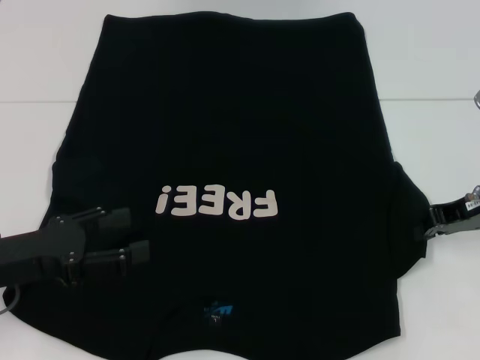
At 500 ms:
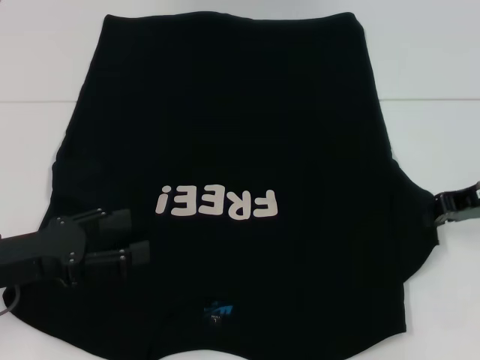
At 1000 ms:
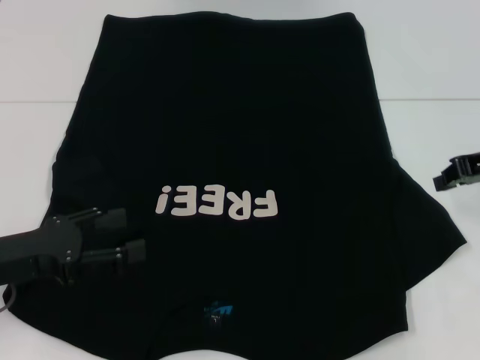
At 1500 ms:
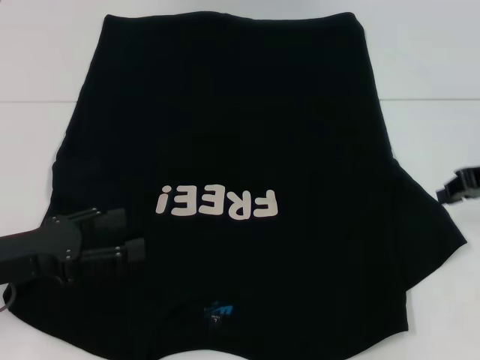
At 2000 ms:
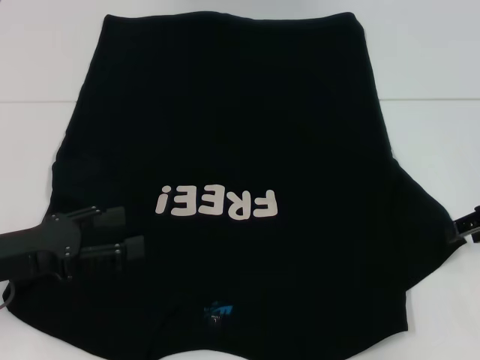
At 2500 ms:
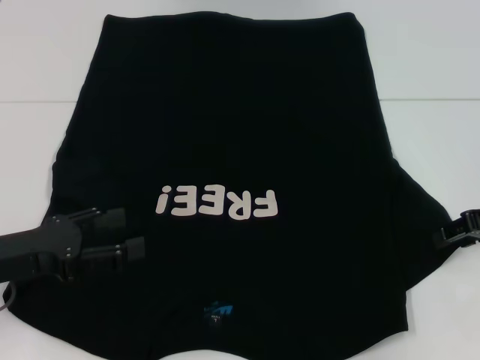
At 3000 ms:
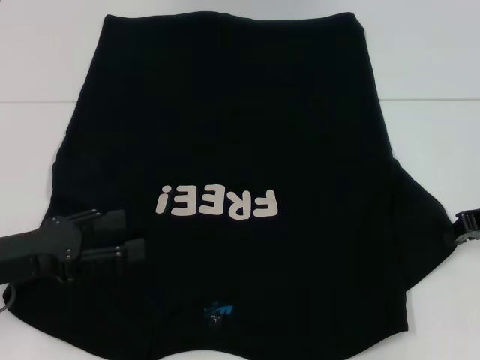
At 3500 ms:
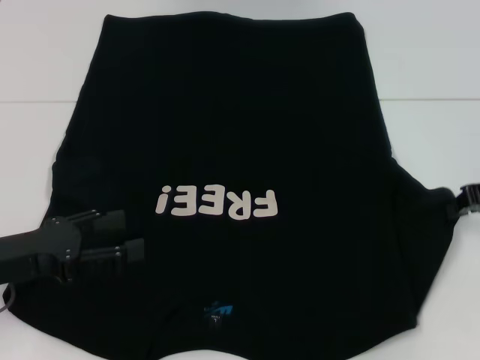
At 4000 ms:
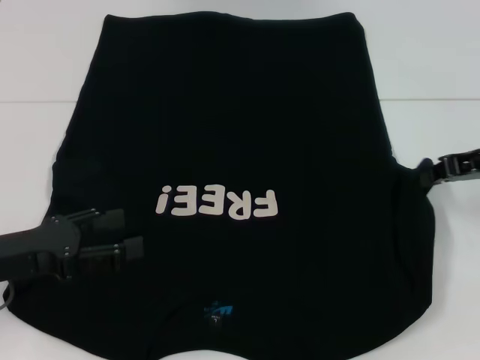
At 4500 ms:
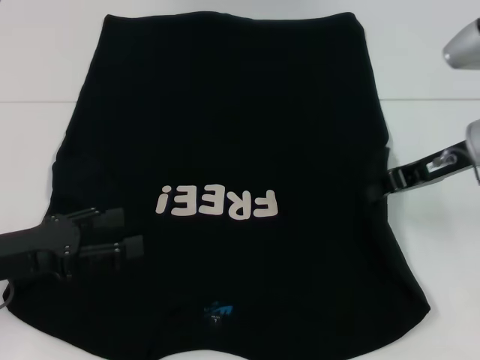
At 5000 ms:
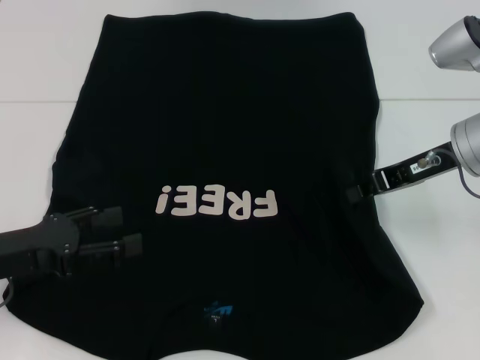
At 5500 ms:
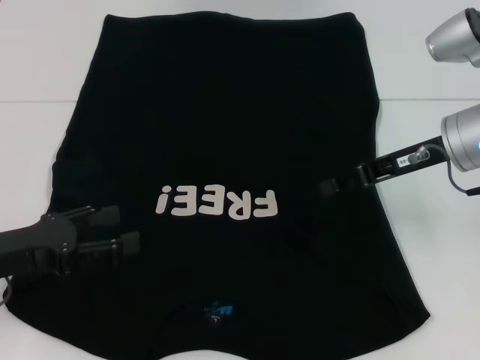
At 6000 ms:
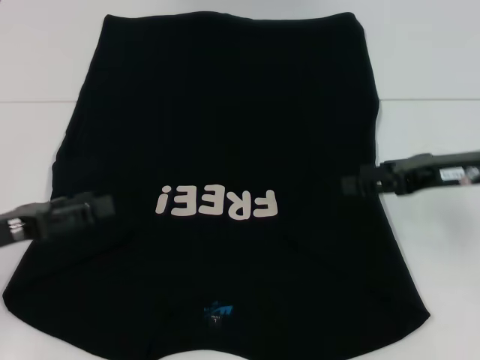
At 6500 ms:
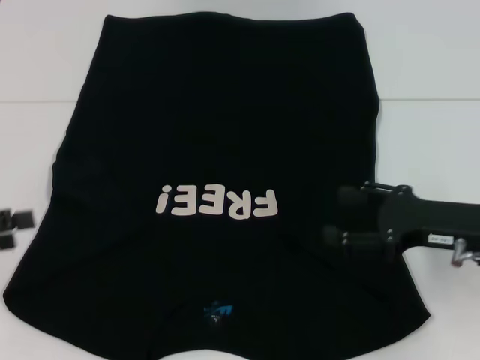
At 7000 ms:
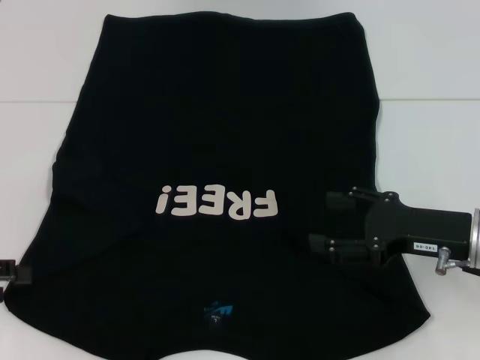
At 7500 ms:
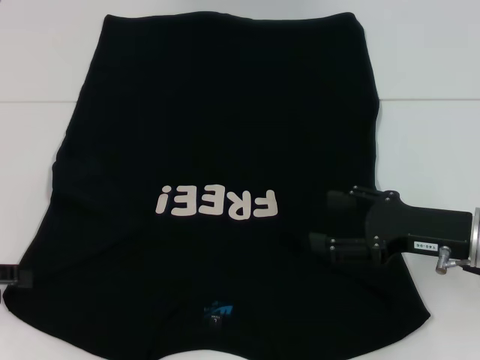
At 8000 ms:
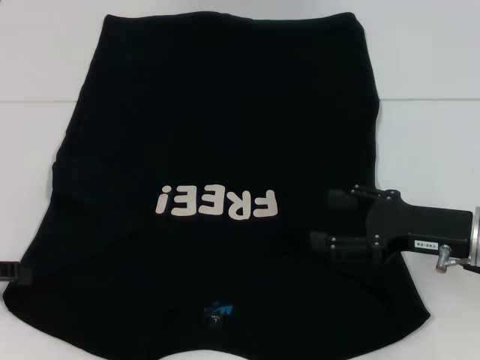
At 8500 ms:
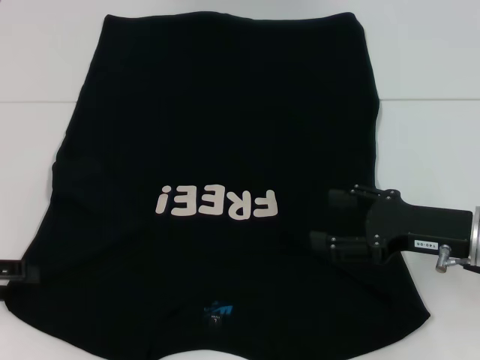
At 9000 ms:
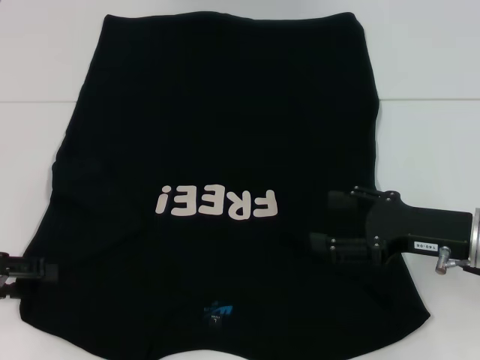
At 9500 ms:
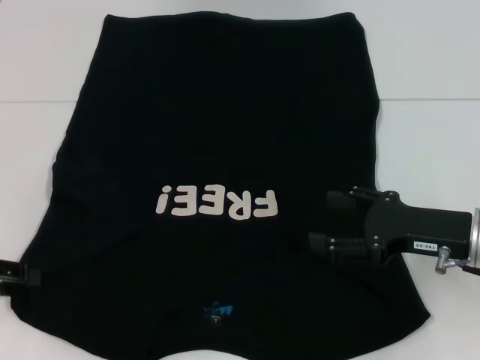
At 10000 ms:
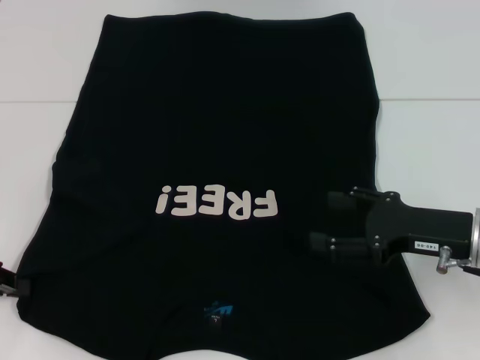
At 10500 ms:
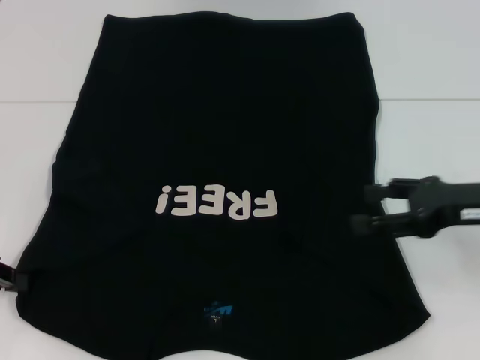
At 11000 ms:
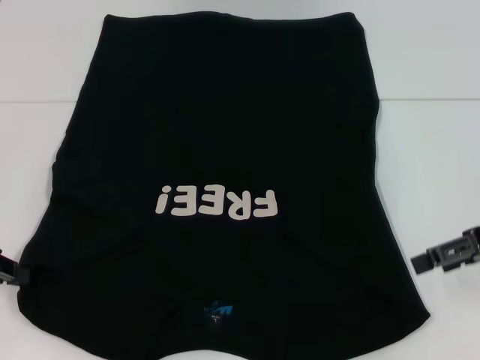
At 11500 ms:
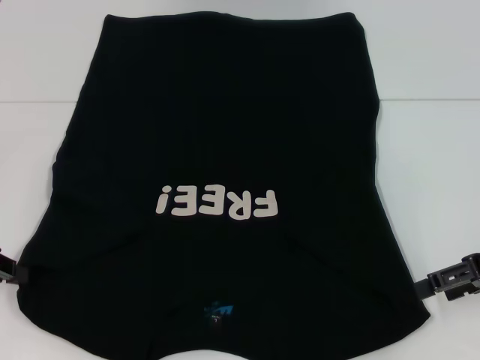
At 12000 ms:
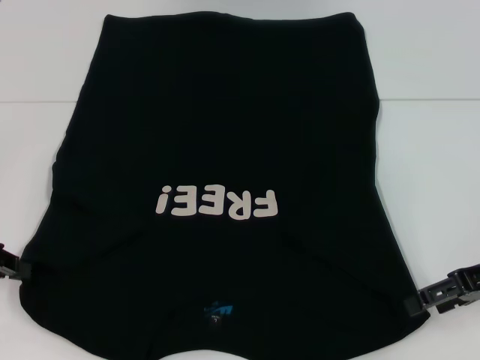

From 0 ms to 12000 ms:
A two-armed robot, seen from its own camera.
Step, from 0 ms to 5500 ms: Fold the bottom right sleeve with your right hand.
Step, from 6000 ms to 10000 ms: Grab the bottom left corner with your left hand.
From 0 ms to 2000 ms: The right gripper moves roughly 5 cm, and opens its fingers.
From 2000 ms to 4000 ms: The right gripper closes its fingers.
From 4000 ms to 6000 ms: The right gripper opens.
From 6000 ms to 8000 ms: The right gripper moves downward and backward, roughly 10 cm. Meanwhile the left gripper travels to the left by about 5 cm.
From 8000 ms to 10000 ms: The left gripper closes its fingers.
From 10000 ms to 12000 ms: The right gripper shifts approximately 5 cm to the right.

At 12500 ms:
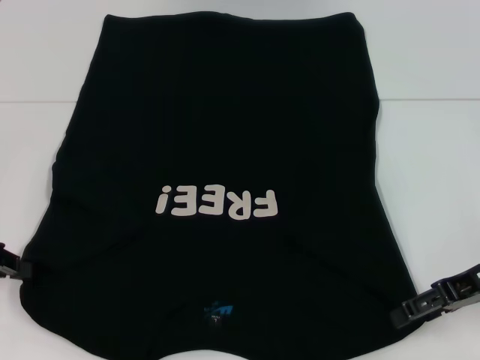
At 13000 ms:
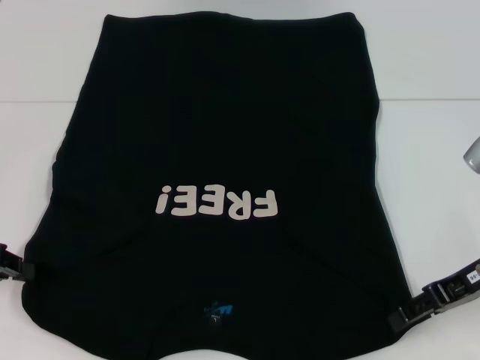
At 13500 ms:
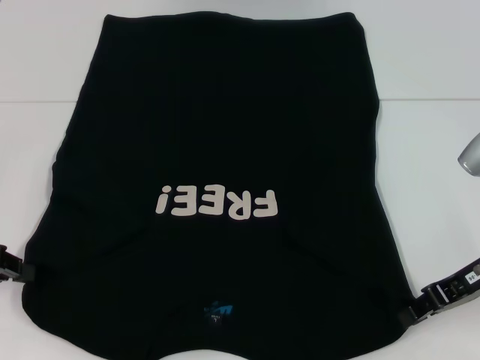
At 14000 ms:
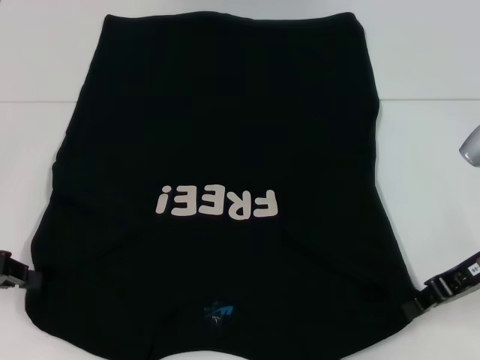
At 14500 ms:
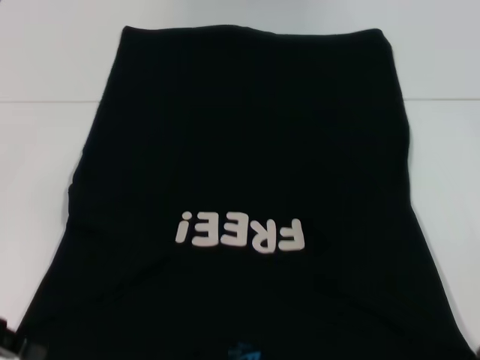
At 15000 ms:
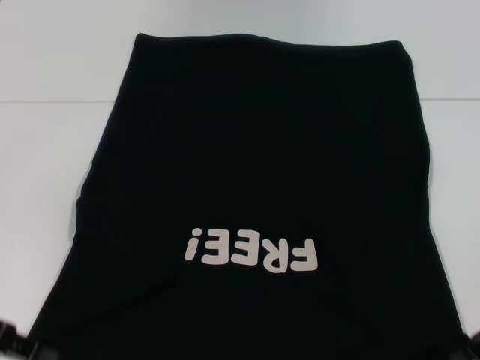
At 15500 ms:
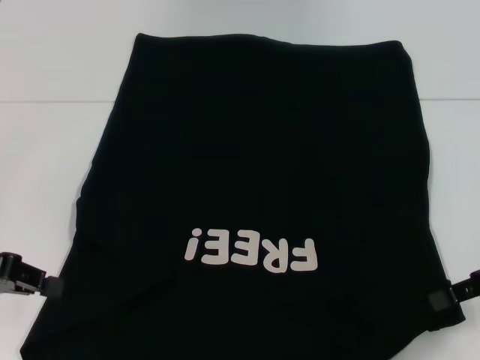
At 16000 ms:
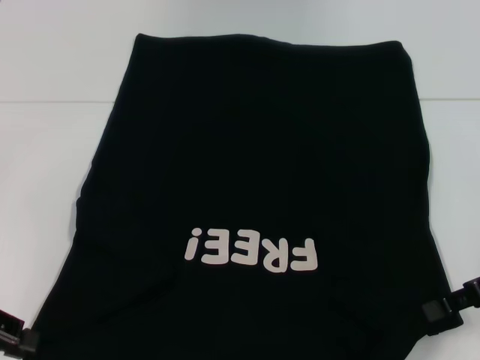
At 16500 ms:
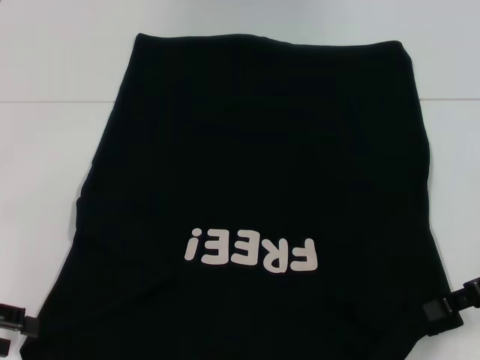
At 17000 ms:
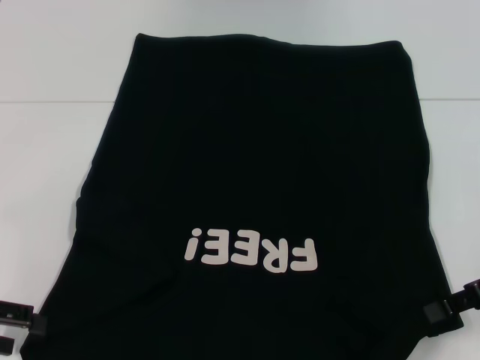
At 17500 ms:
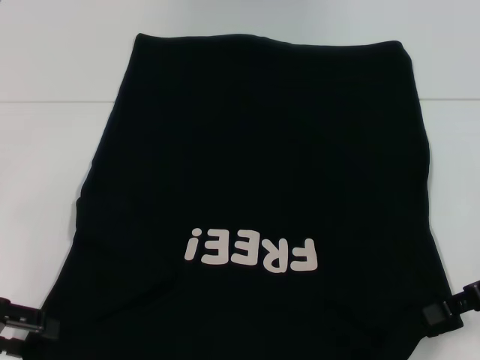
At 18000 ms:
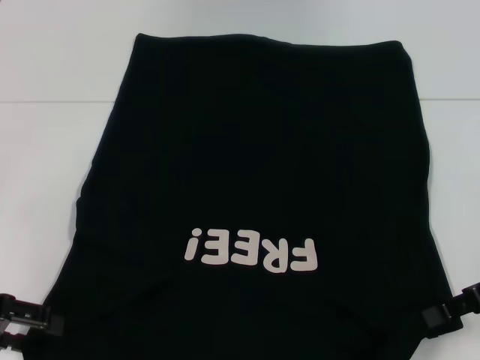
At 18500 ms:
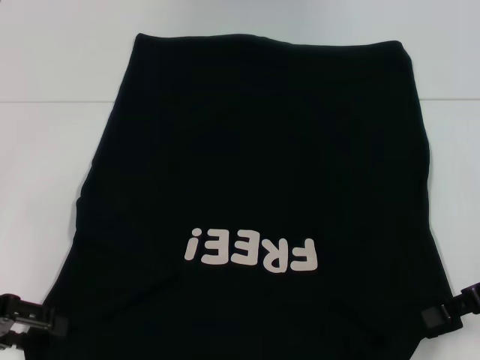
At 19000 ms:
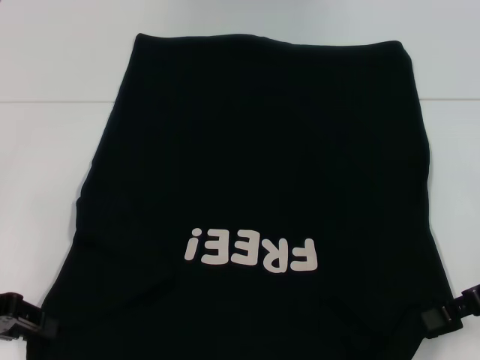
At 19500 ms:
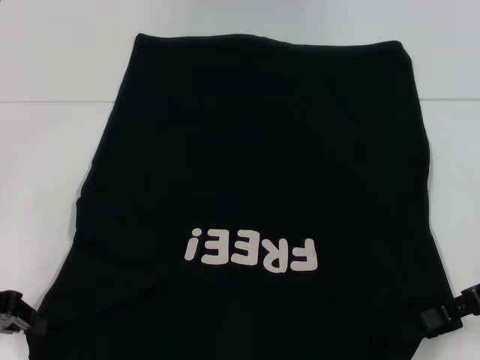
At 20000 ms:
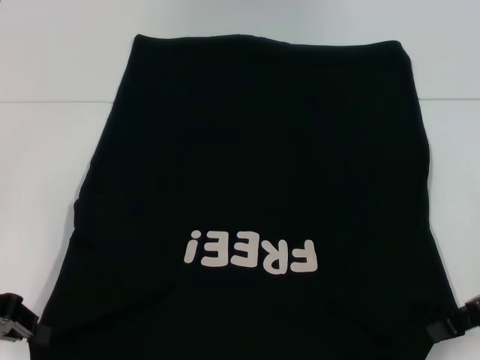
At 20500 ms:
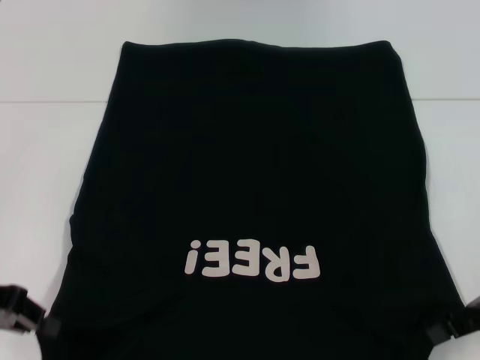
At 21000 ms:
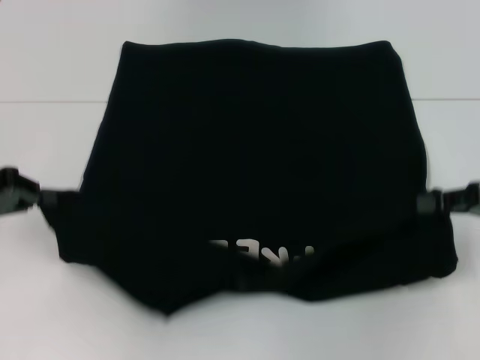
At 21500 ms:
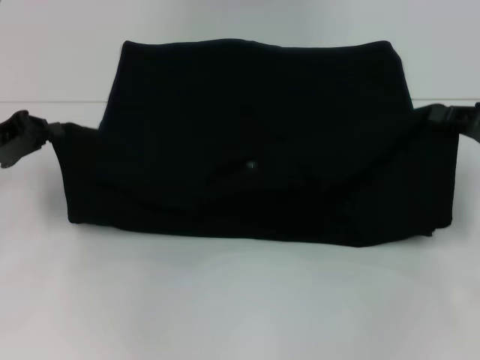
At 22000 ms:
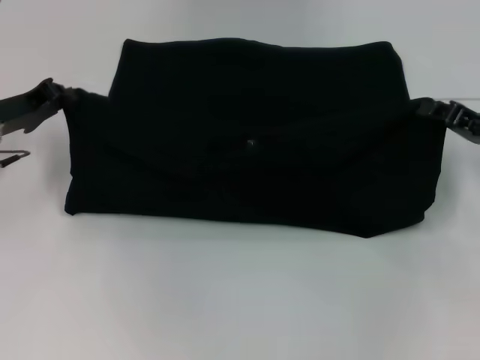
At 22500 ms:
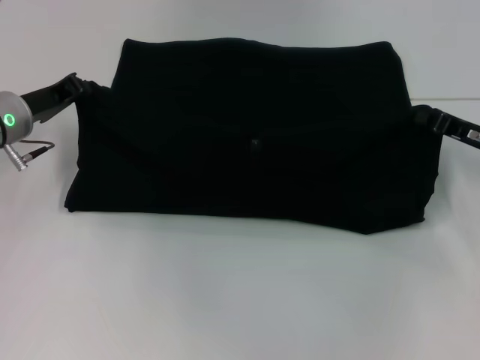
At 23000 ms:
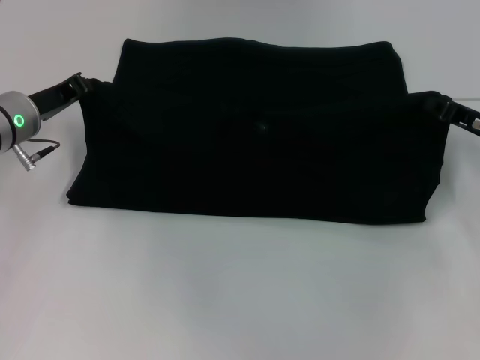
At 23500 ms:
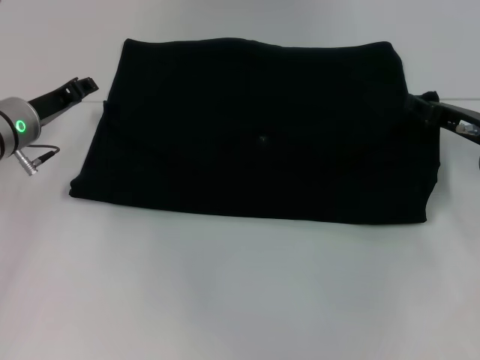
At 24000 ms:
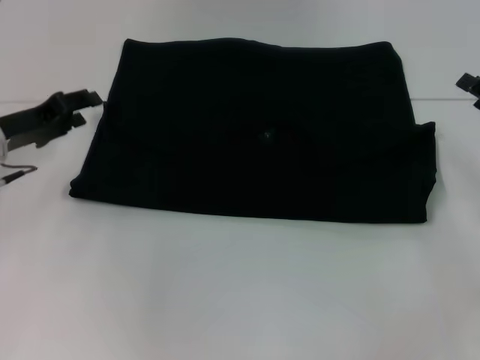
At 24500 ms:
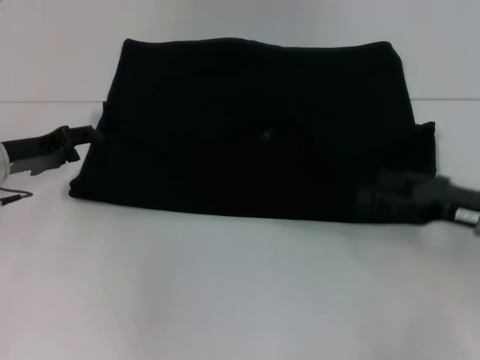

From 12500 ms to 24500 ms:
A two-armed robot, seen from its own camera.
Step, from 14000 ms to 23500 ms: Fold the clothes with your left hand.
Step, from 14000 ms to 23500 ms: Fold the clothes with your right hand.
From 12500 ms to 14500 ms: The right gripper closes.
From 14500 ms to 16500 ms: The left gripper opens its fingers.
From 16500 ms to 18500 ms: The grippers make only small movements.
From 18500 ms to 20500 ms: The left gripper closes up.
From 20500 ms to 22500 ms: The left gripper moves forward and to the right, approximately 15 cm, while the right gripper travels forward by about 10 cm.
From 22500 ms to 24500 ms: The left gripper opens. The right gripper moves backward, about 5 cm, and opens up.

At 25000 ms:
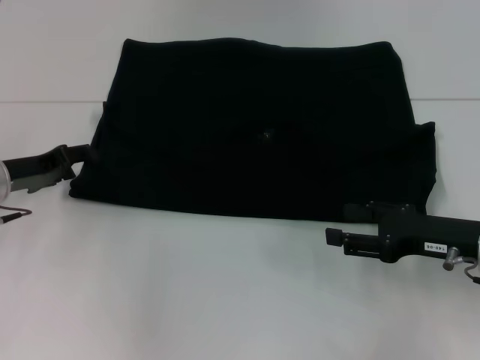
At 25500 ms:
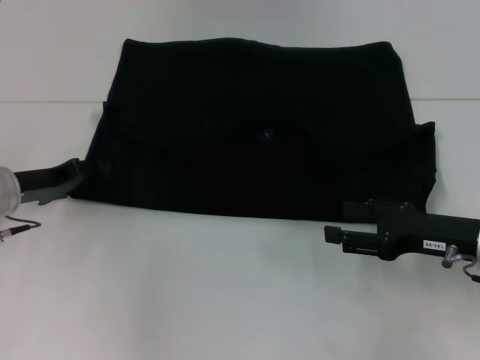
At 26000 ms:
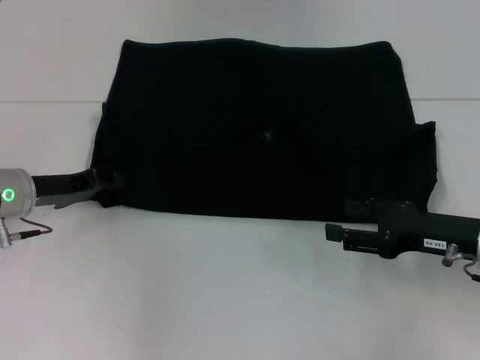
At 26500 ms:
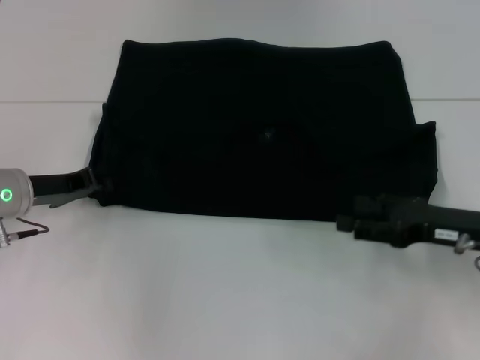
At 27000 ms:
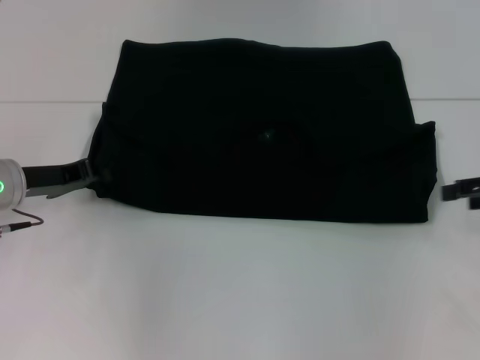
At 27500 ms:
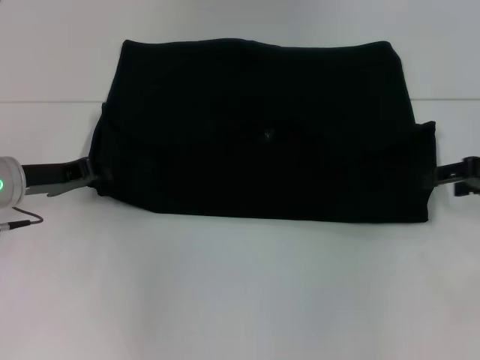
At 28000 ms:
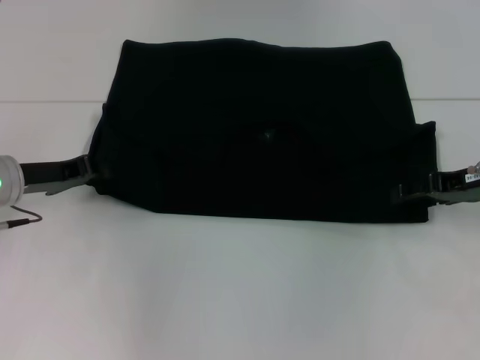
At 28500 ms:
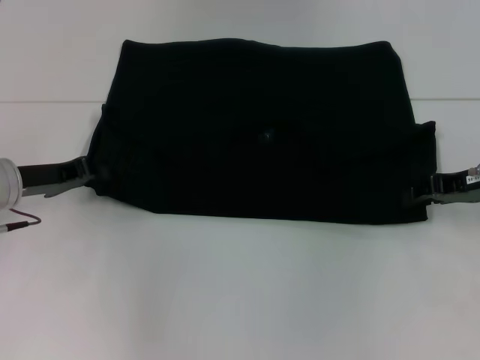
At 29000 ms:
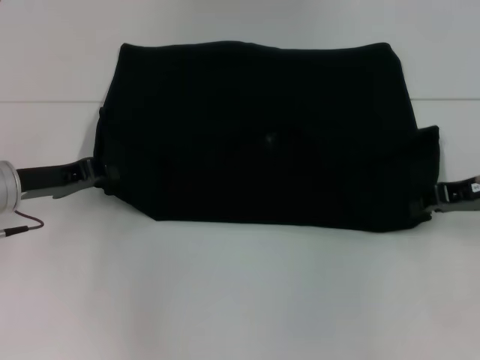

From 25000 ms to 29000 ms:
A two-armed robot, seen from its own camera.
From 25000 ms to 27000 ms: The right gripper travels to the right and upward by roughly 10 cm. The left gripper closes up.
From 27000 ms to 29000 ms: The right gripper travels to the left by some 5 cm, and closes its fingers.
